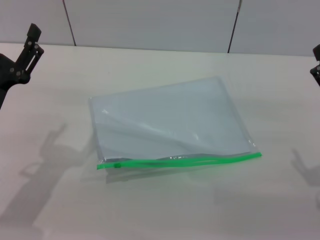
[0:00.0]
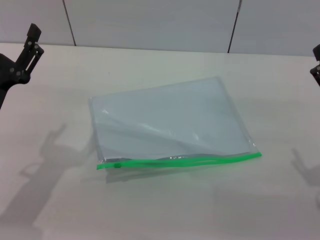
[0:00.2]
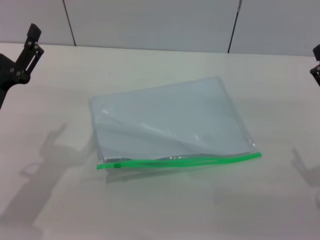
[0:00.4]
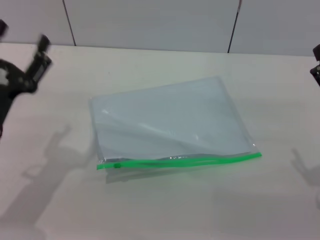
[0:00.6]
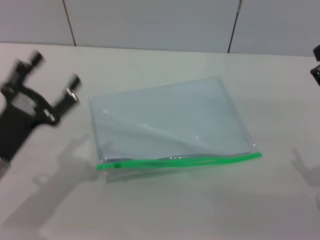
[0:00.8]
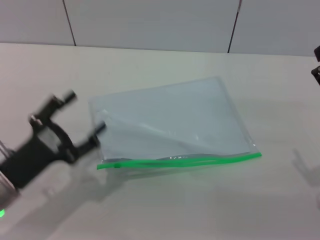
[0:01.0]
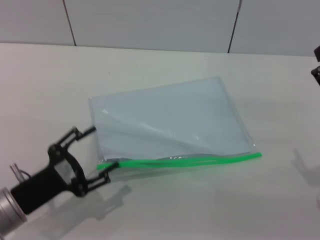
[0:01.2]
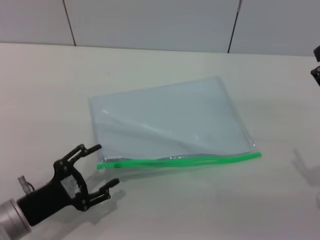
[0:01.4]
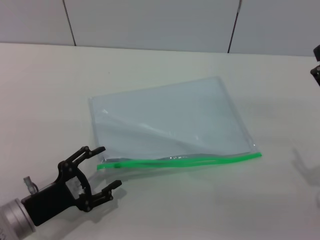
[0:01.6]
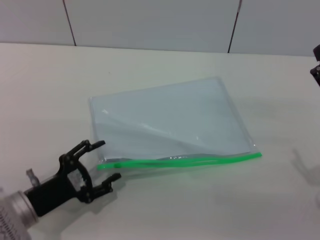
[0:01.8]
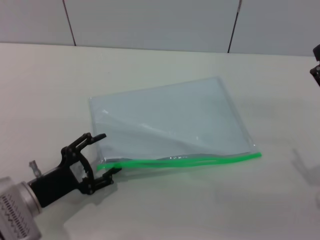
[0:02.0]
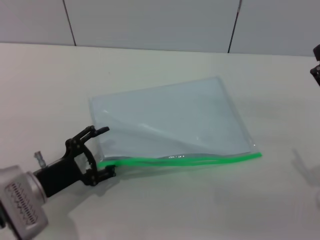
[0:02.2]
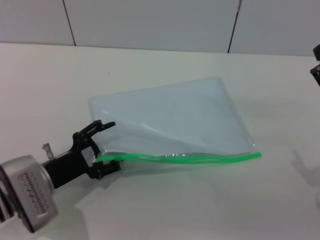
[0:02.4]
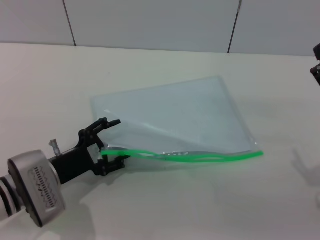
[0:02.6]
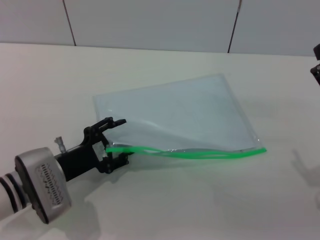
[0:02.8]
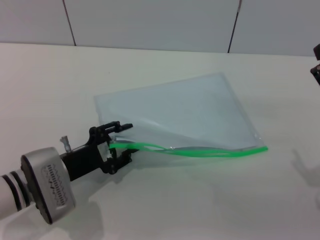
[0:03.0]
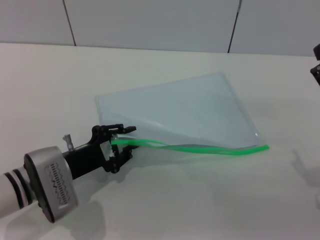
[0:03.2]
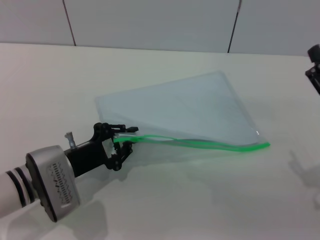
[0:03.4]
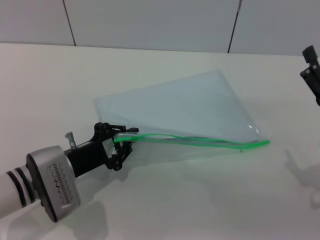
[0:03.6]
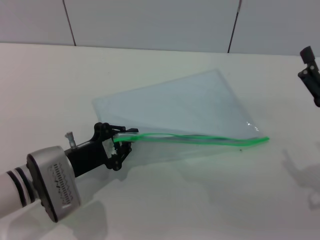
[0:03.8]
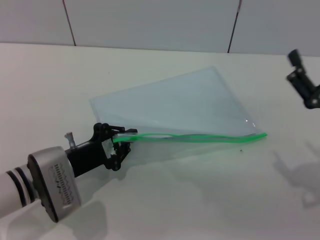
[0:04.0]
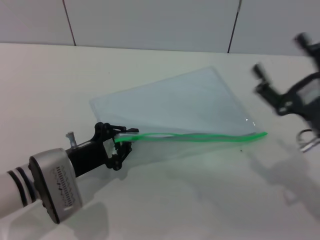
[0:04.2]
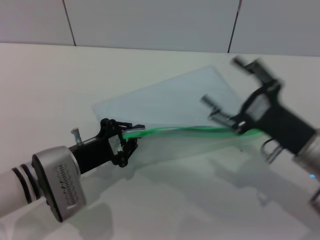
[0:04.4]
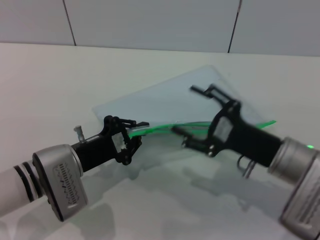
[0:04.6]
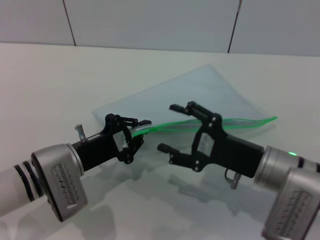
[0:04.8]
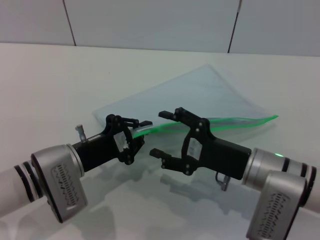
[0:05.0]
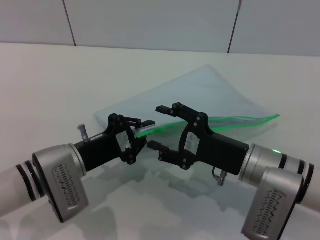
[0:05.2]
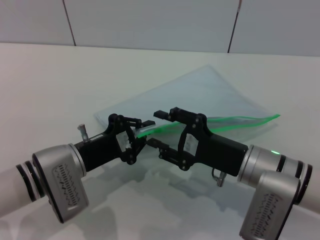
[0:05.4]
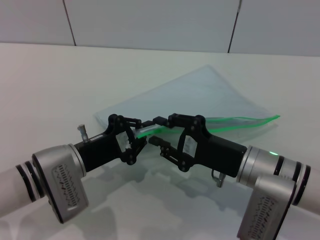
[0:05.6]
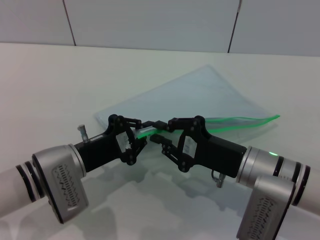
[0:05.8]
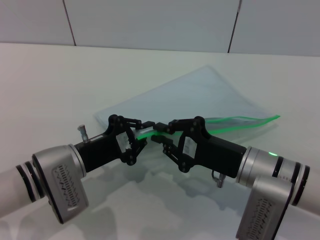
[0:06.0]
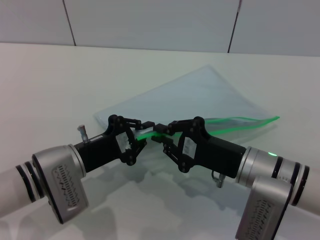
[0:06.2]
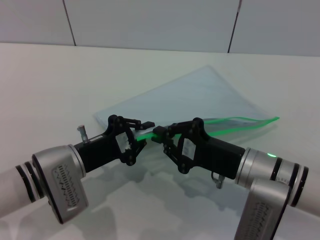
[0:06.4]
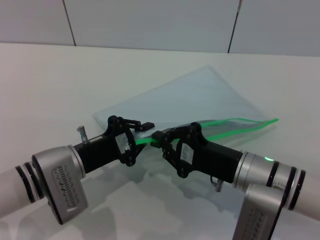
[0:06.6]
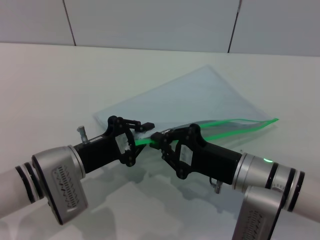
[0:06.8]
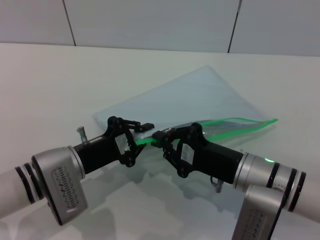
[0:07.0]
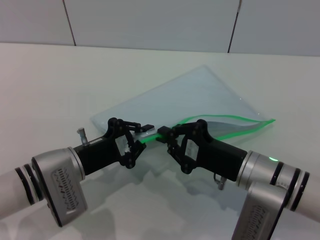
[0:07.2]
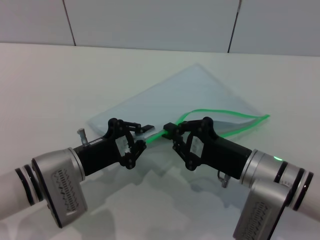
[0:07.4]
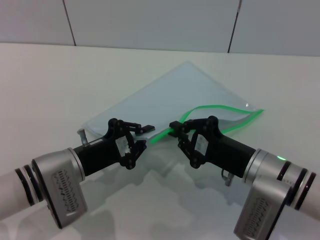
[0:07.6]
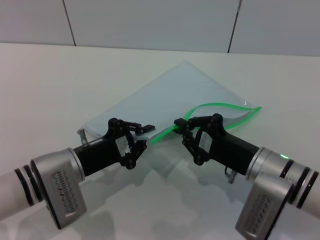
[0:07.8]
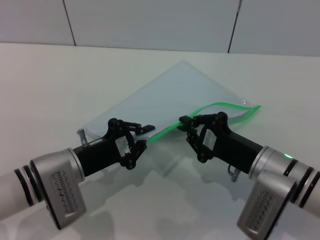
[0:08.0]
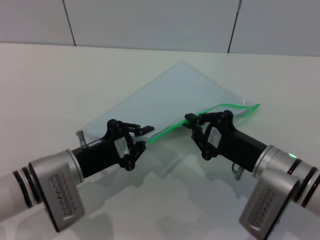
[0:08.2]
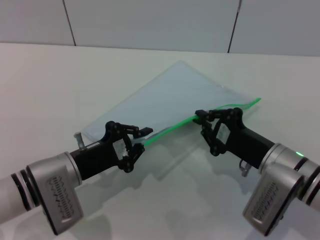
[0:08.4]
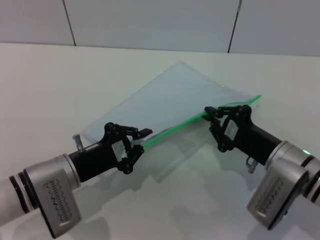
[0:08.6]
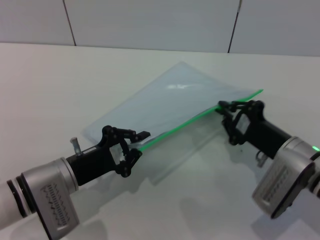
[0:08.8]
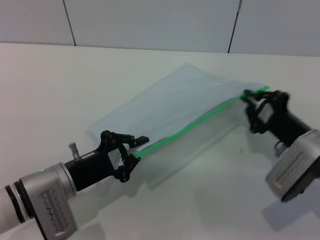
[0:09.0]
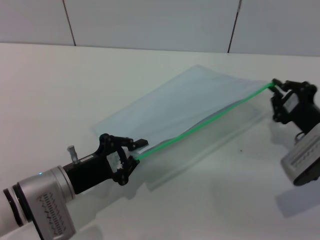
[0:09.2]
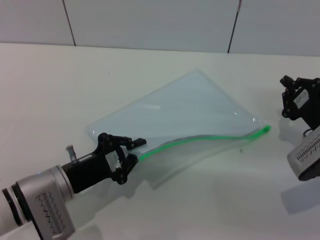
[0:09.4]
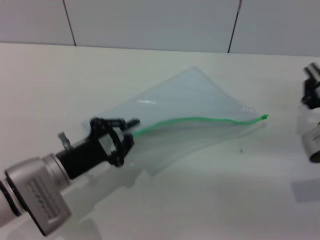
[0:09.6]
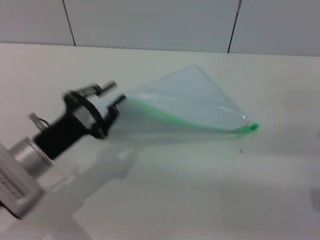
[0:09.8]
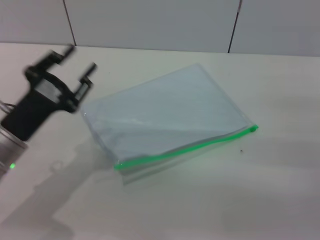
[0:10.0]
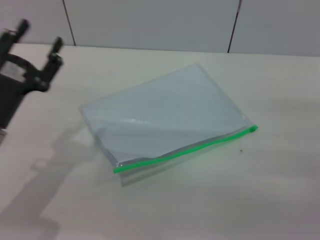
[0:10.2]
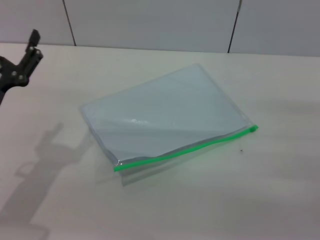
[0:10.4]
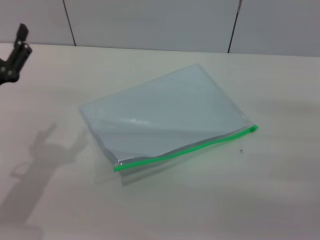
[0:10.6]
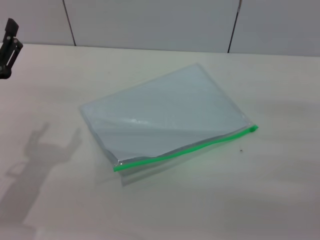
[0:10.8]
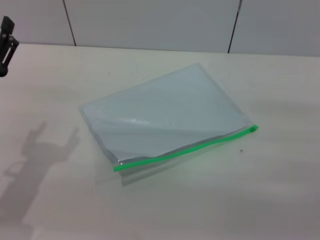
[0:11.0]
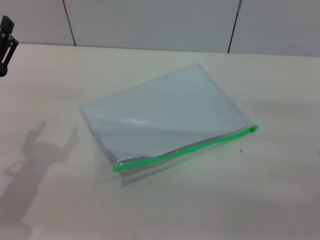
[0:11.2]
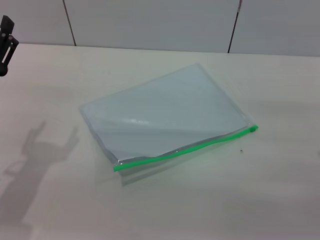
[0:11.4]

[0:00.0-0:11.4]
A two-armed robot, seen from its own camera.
Step, 0:00.0 to 0:04.0: Pick up the transparent plastic bag with the left gripper.
Step, 0:04.2 to 0:09.6: Pulling up the zipper on the transparent plastic bag with the right gripper to close it.
Step, 0:09.8 to 0:10.2: Place the transparent plastic bag.
0:00.0 to 0:01.4: The left gripper is displaced downward and backward by roughly 10 cm.
0:01.4 to 0:02.8: The left gripper heads forward, covering roughly 10 cm.
0:02.8 to 0:04.2: The left gripper closes up.
0:04.2 to 0:05.6: The right gripper travels to the left by approximately 10 cm.
0:05.6 to 0:07.2: The right gripper closes up.
0:08.6 to 0:10.0: The right gripper moves to the right, approximately 10 cm. The left gripper changes place by approximately 5 cm.
0:10.0 to 0:11.4: The left gripper opens.
